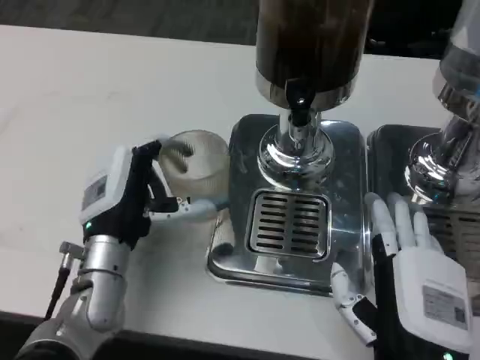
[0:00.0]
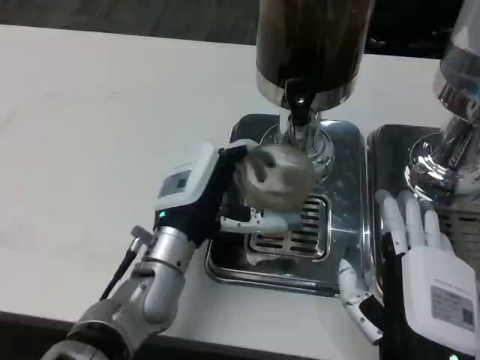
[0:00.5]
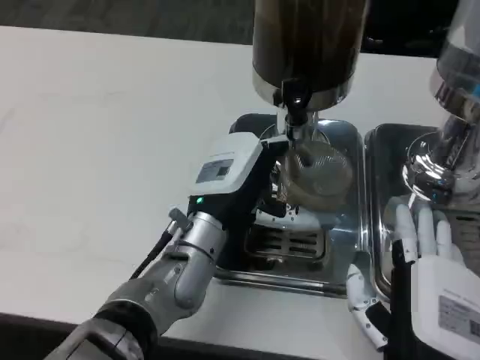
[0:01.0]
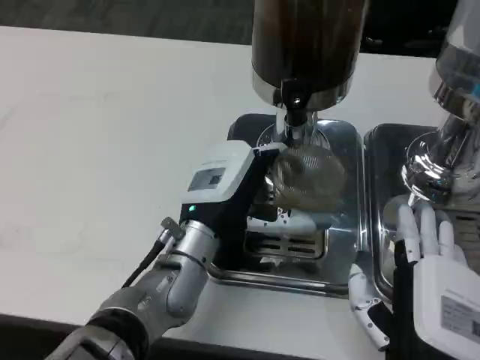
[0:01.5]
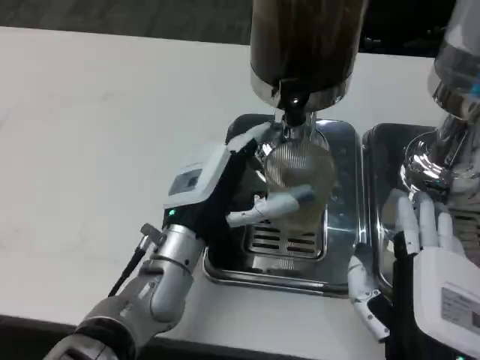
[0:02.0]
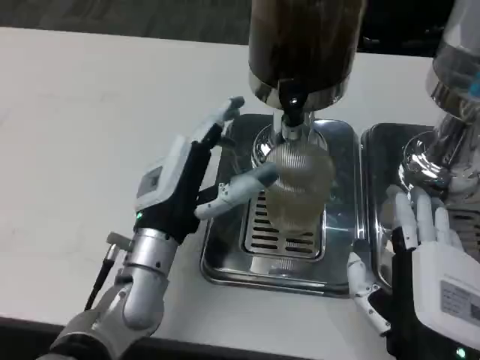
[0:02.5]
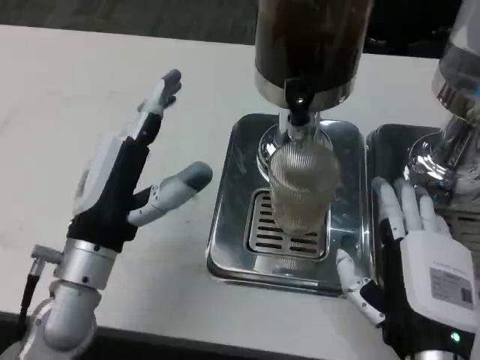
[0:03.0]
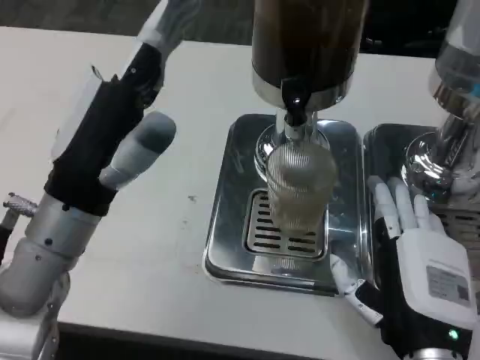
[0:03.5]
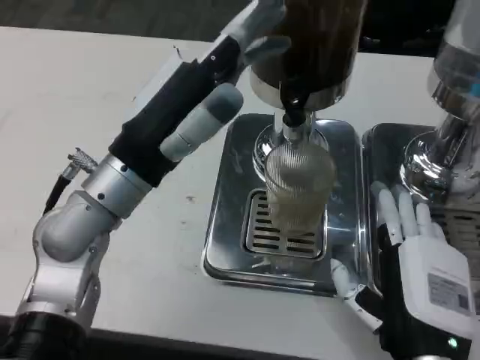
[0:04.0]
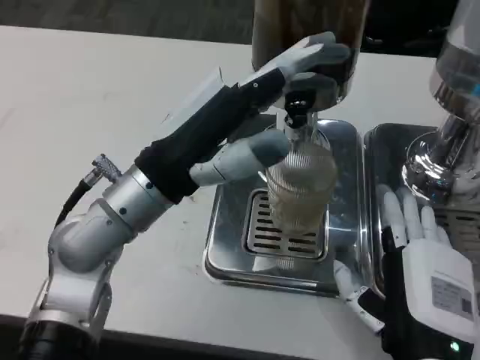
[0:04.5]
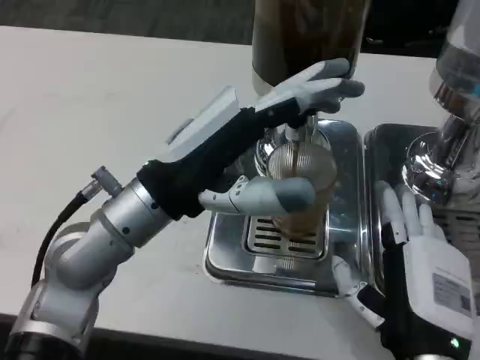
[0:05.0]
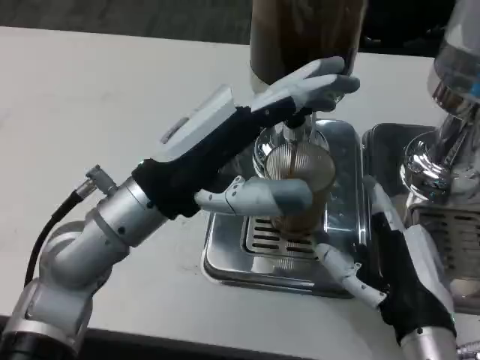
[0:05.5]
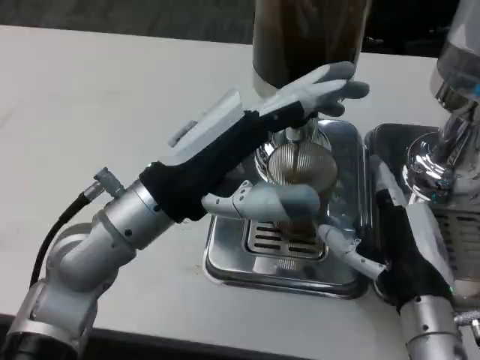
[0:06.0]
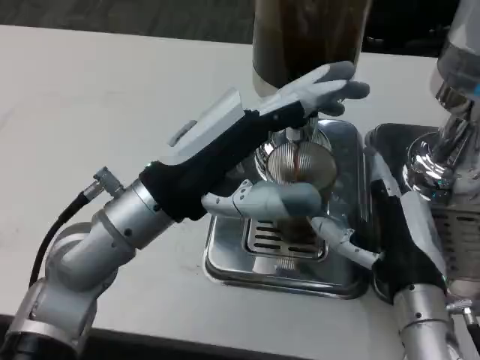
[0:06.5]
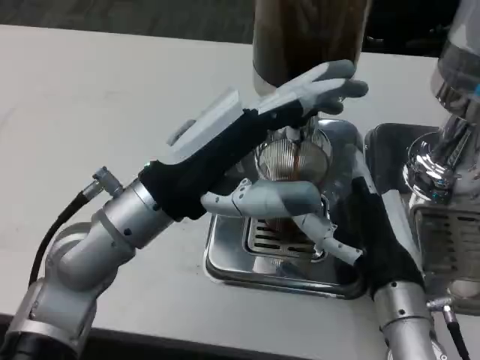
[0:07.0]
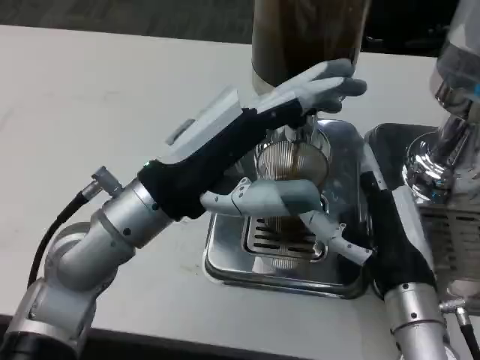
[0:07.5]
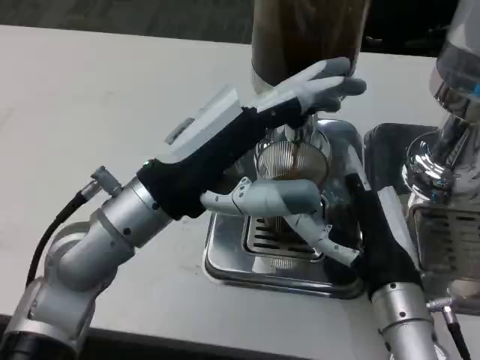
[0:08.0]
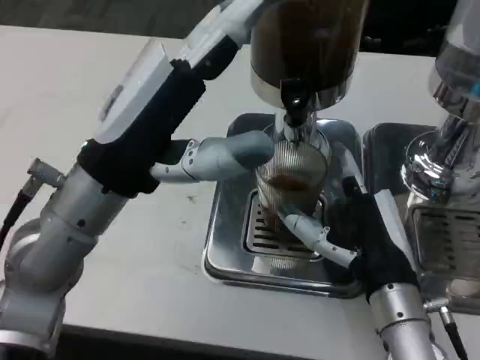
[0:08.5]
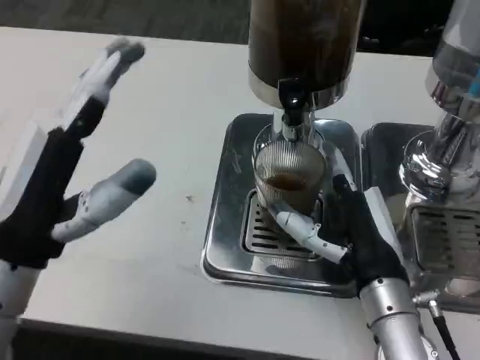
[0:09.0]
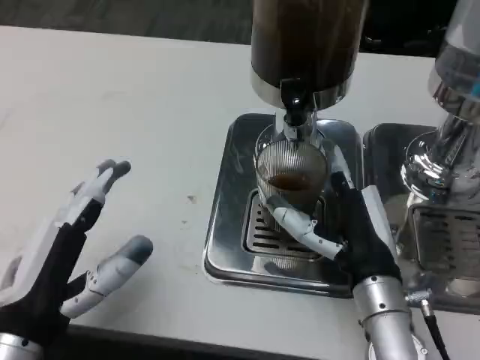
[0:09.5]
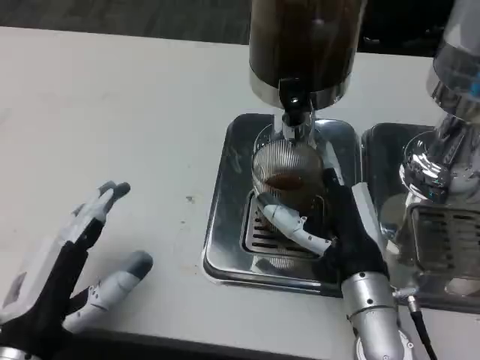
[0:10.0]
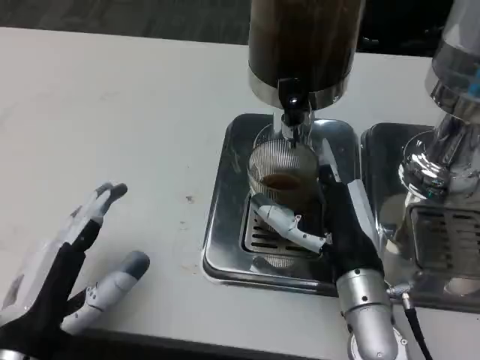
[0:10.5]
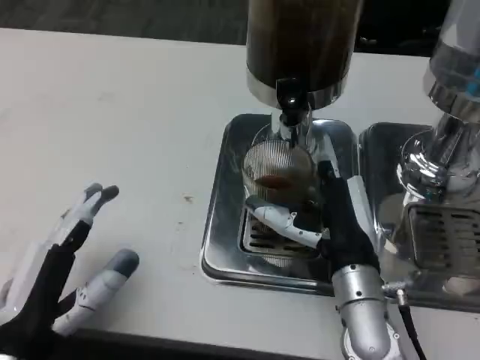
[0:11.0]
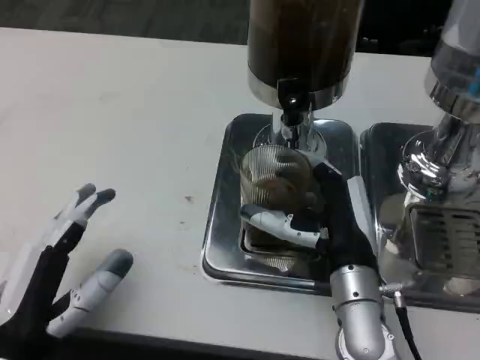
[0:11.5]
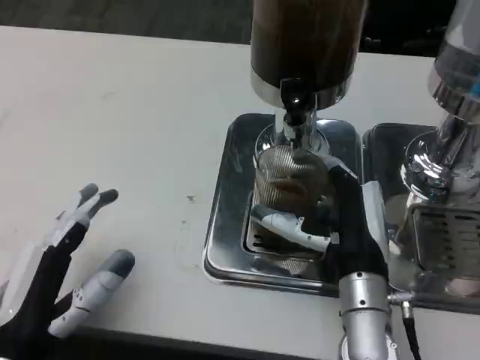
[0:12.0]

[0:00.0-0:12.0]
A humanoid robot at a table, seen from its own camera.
Task of the whole recording: Grasp the cup under the faucet to collect the drink, then remove the cup.
0:00.0 to 0:02.0: The left hand travels to the right by about 5 cm.
0:02.0 to 0:04.0: The left hand moves upward and to the left, approximately 10 cm.
0:04.0 to 0:06.0: The right hand moves forward, approximately 5 cm.
0:06.0 to 0:08.0: The hands stay close to where they were, moving slightly.
0:08.0 to 0:10.0: The left hand travels backward, downward and to the left by roughly 20 cm.
0:10.0 to 0:12.0: The hands stay close to where they were, moving slightly.

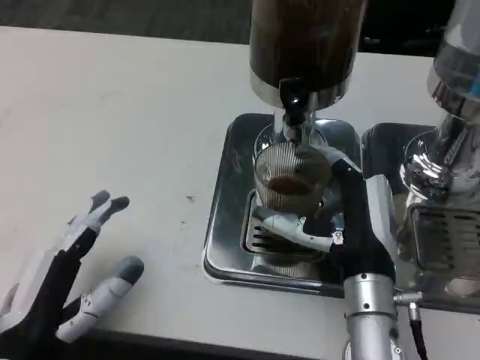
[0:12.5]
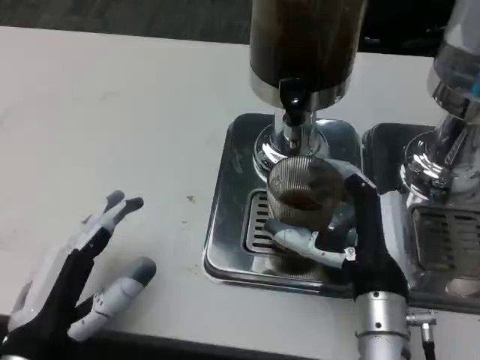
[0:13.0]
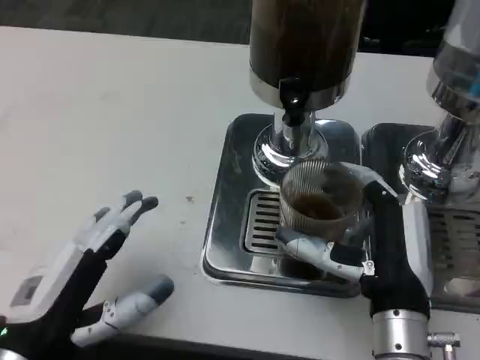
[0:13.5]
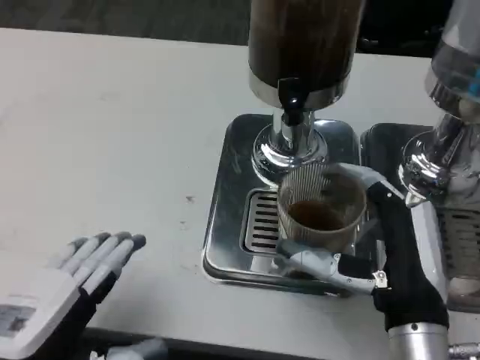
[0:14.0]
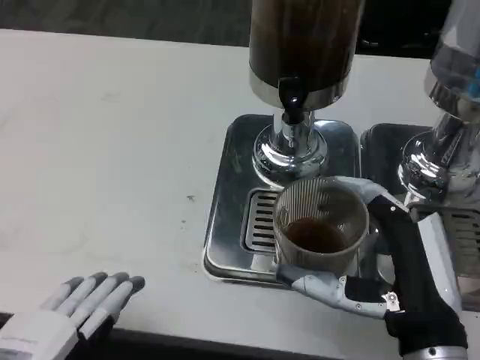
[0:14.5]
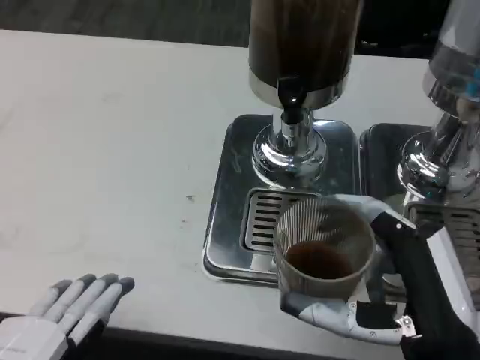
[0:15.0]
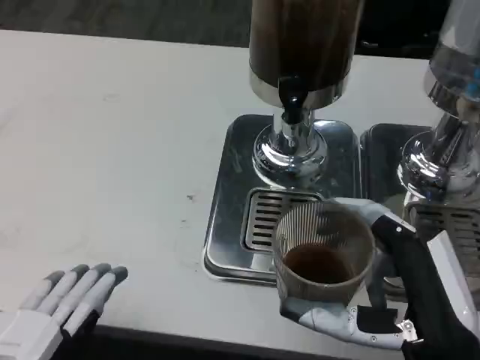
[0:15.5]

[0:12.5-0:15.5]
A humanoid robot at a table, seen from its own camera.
Task of the whole recording: Grasp the cup under the faucet to collect the drink, then remove the cup.
0:12.5 to 0:14.0: The right hand shifts about 5 cm backward; the left hand moves upward, about 5 cm.
0:14.0 to 0:15.5: The right hand goes some 5 cm backward.

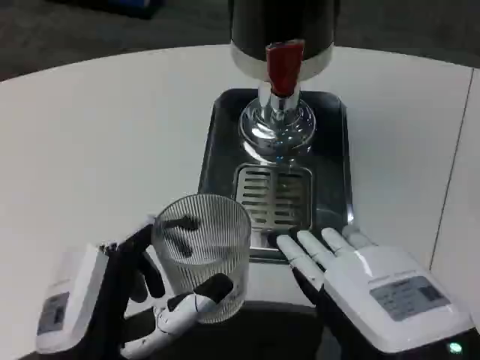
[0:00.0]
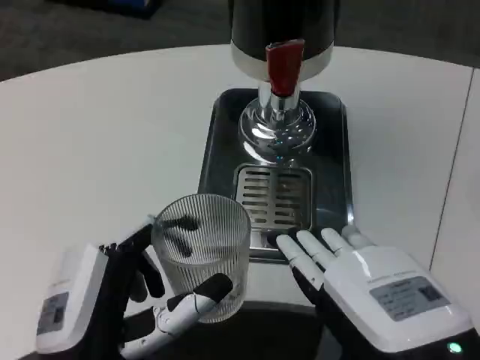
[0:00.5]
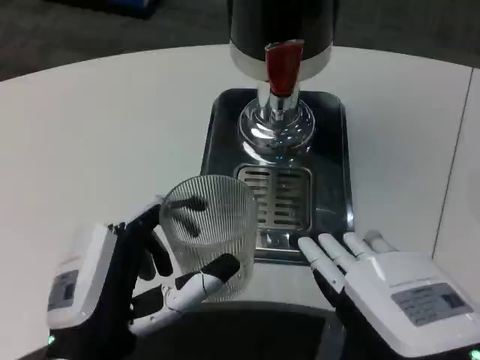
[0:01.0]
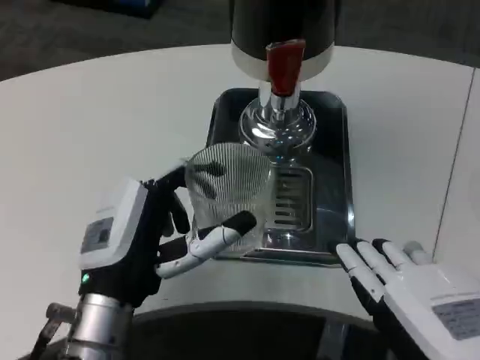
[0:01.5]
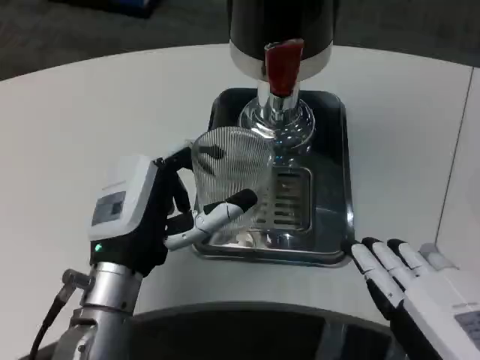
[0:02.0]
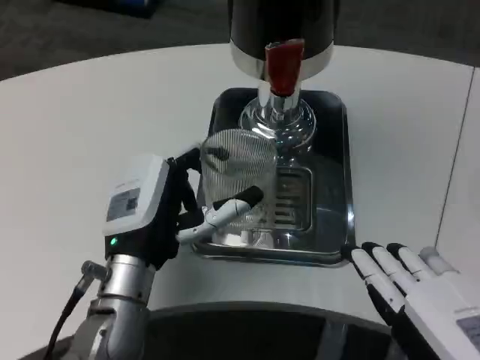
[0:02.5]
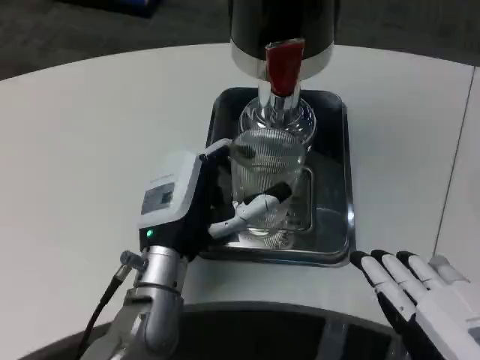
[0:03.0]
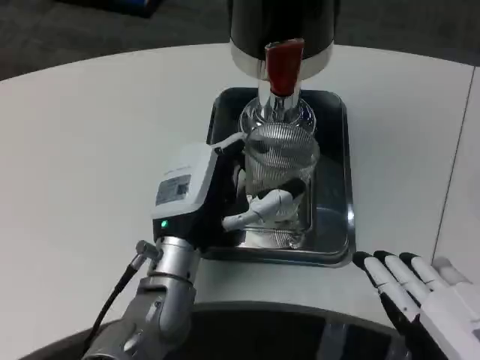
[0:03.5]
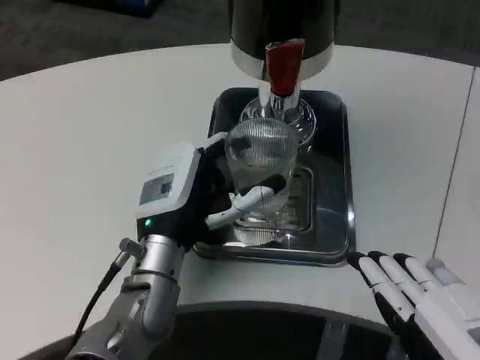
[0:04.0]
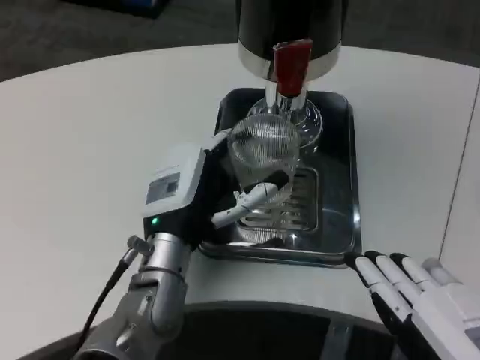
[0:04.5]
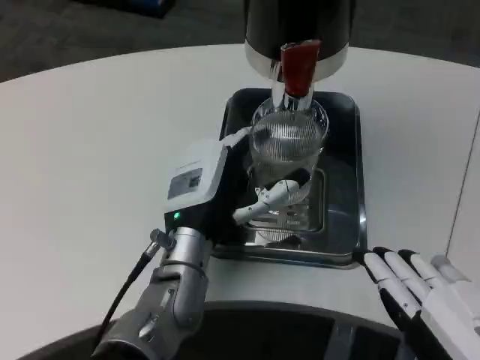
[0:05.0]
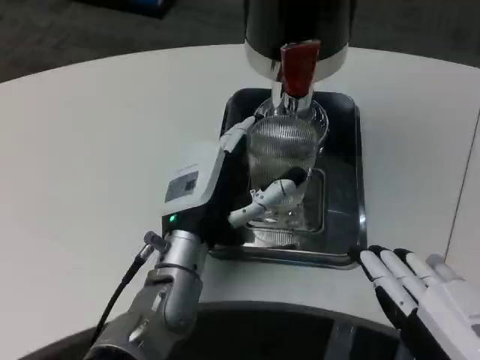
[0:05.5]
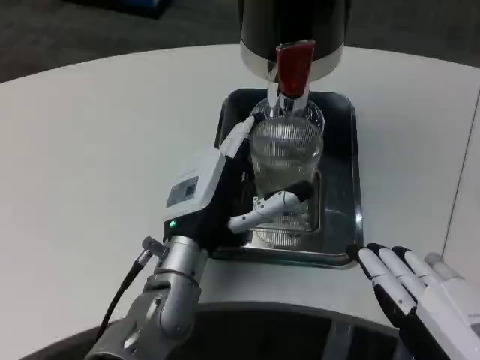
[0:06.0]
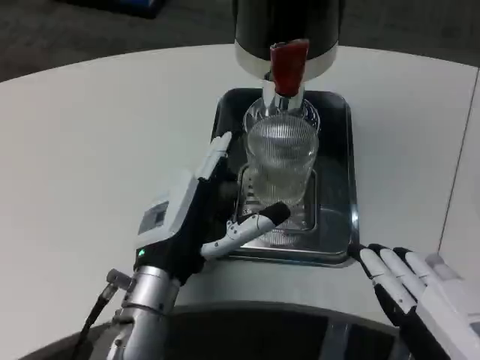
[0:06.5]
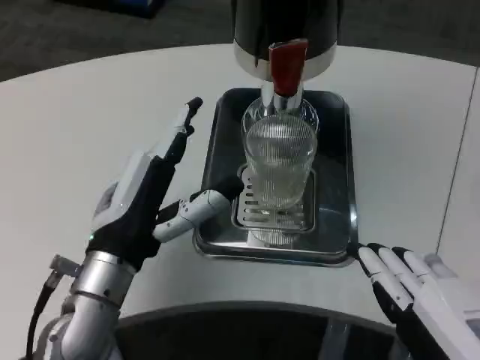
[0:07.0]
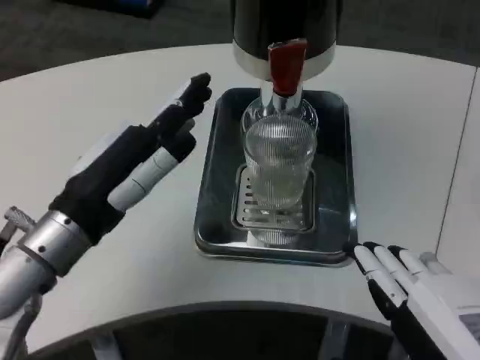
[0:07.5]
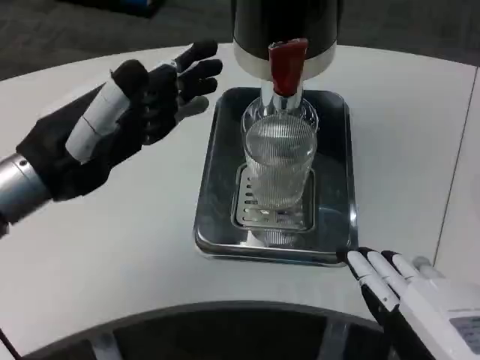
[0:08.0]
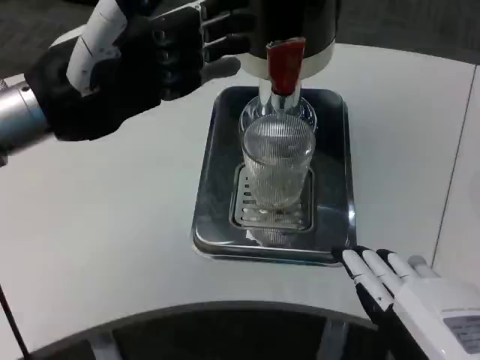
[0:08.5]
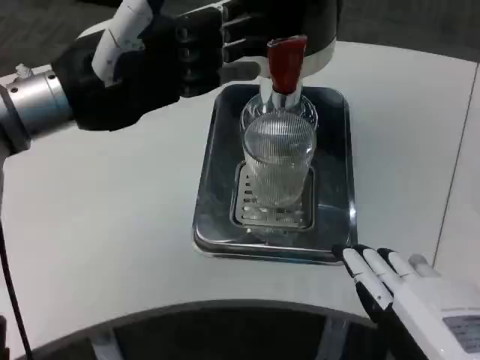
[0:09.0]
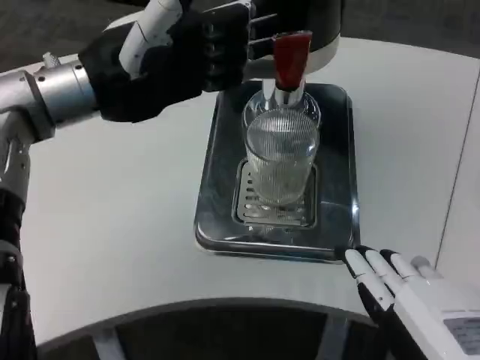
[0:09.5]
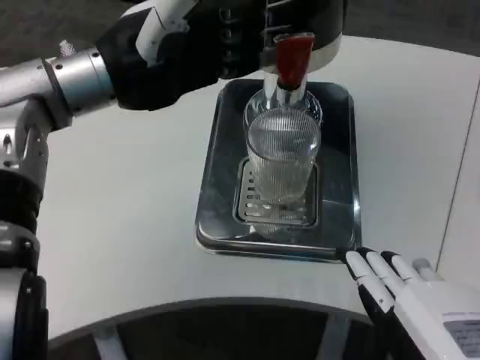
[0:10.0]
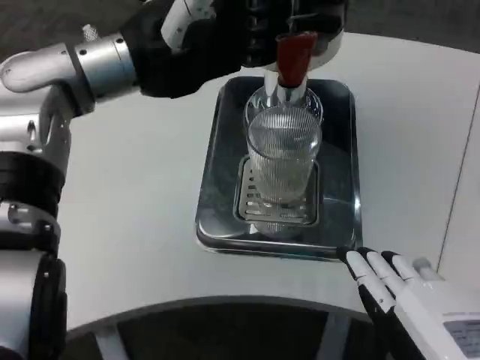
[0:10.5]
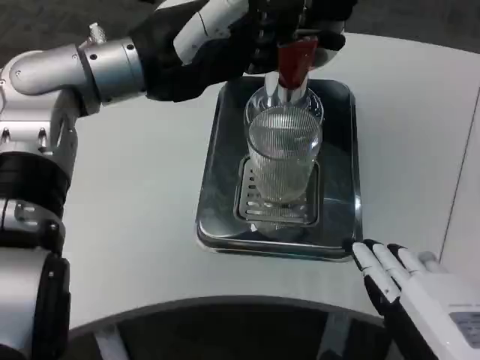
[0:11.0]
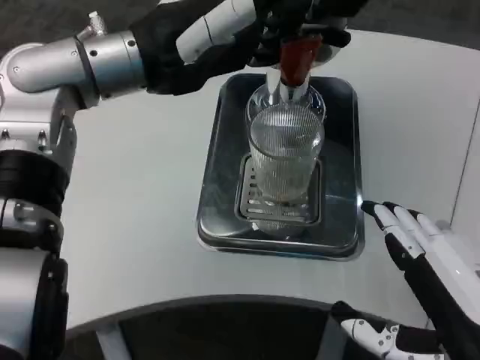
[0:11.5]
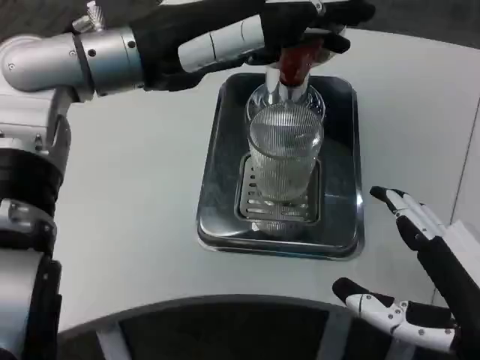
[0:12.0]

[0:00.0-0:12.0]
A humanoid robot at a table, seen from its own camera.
Task of the whole recording: Grasp the cup under the faucet to collect the drink, then remove the cup.
0:00.0 to 0:02.0: The left hand travels forward by approximately 10 cm.
0:02.0 to 0:04.0: The left hand changes place by roughly 5 cm.
0:06.0 to 0:08.0: The left hand moves to the left and upward, about 20 cm.
0:08.0 to 0:10.0: The left hand is displaced forward and upward by some 10 cm.
0:10.0 to 0:12.0: The right hand is displaced forward by roughly 5 cm.
